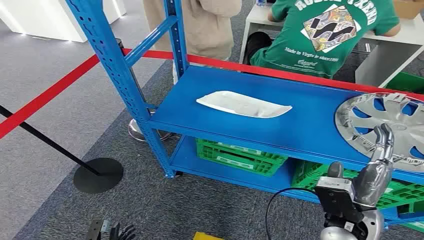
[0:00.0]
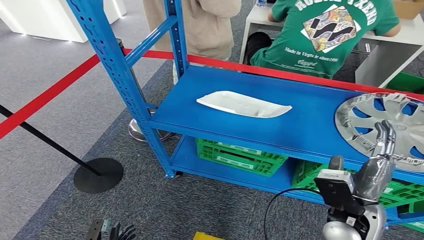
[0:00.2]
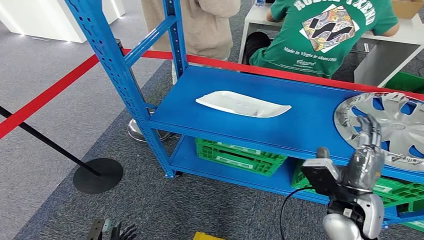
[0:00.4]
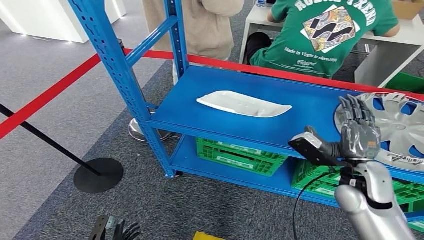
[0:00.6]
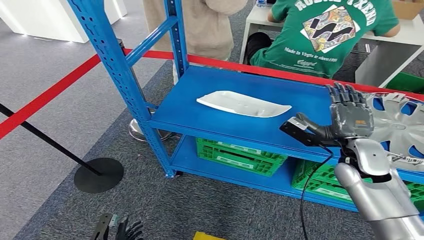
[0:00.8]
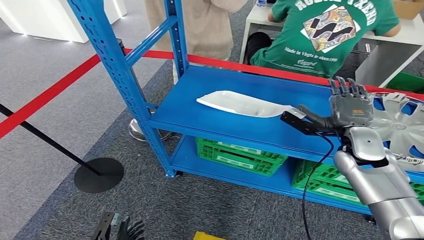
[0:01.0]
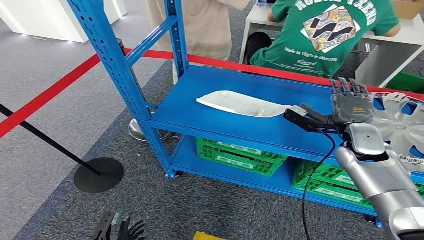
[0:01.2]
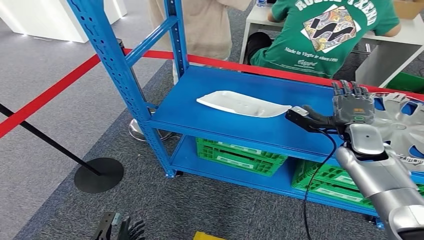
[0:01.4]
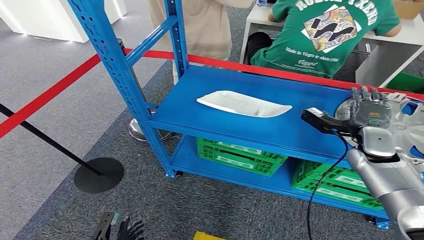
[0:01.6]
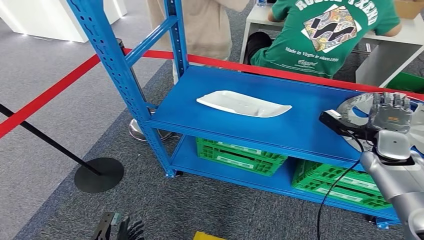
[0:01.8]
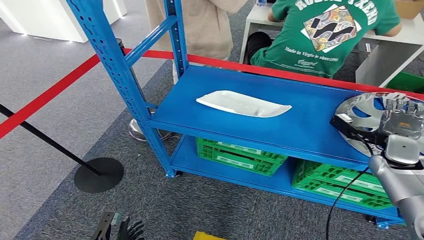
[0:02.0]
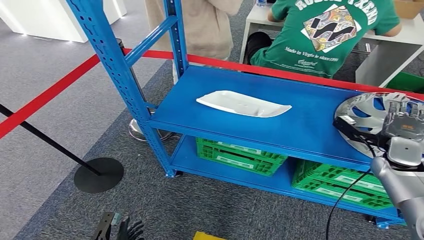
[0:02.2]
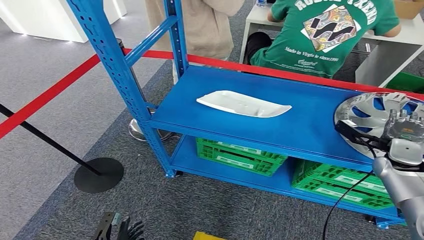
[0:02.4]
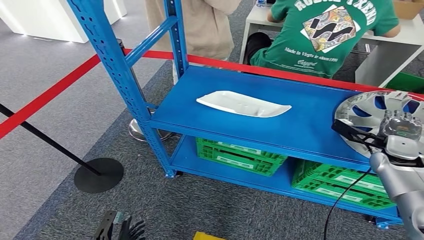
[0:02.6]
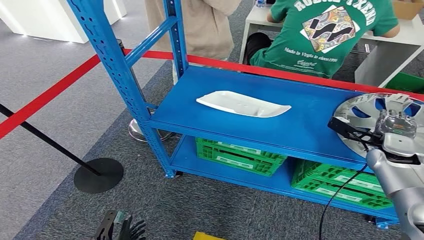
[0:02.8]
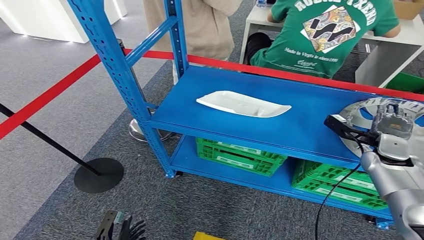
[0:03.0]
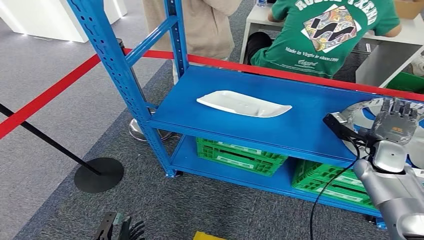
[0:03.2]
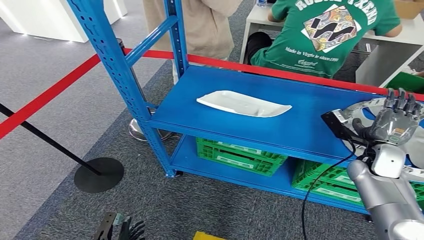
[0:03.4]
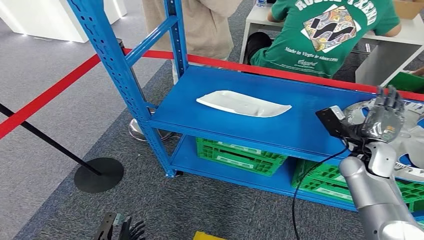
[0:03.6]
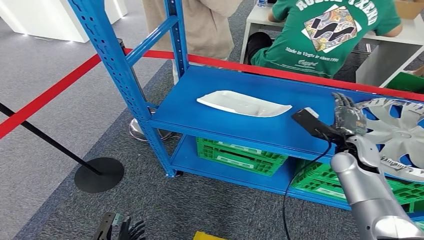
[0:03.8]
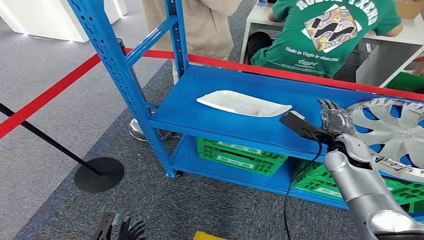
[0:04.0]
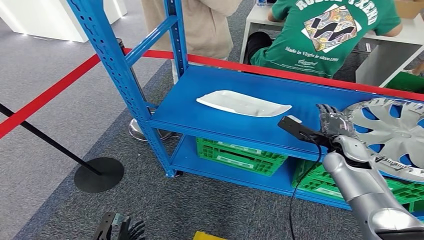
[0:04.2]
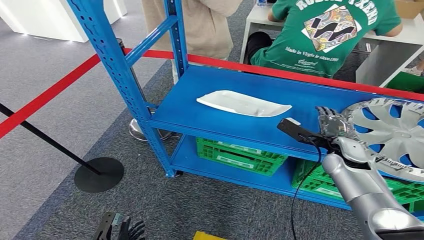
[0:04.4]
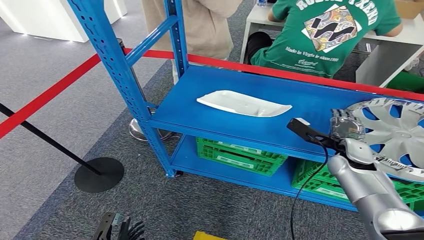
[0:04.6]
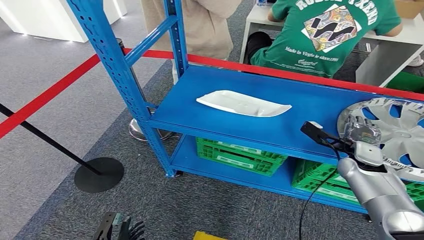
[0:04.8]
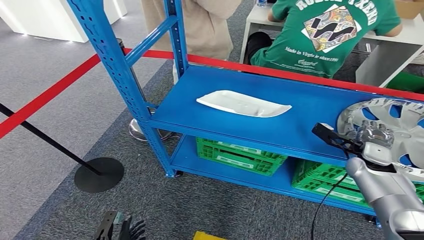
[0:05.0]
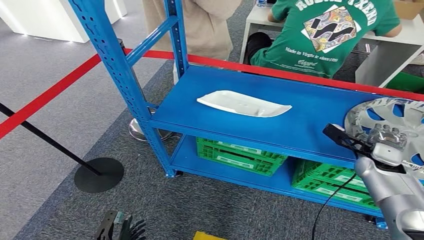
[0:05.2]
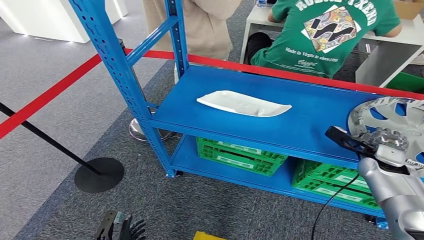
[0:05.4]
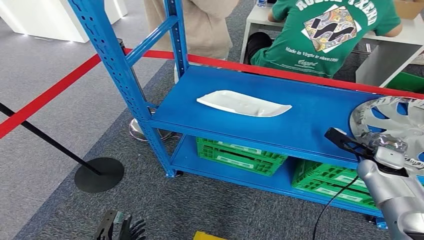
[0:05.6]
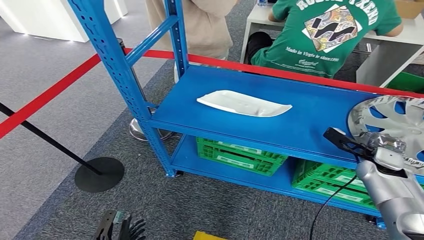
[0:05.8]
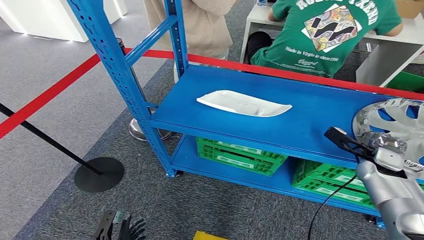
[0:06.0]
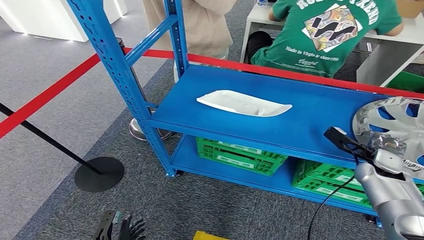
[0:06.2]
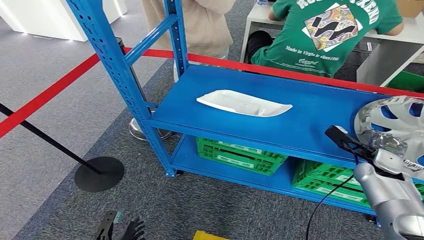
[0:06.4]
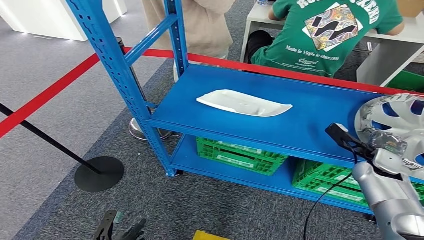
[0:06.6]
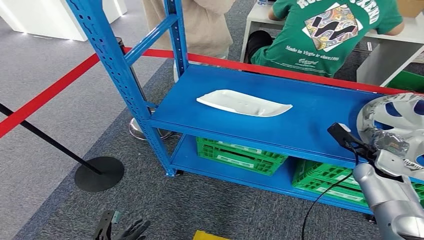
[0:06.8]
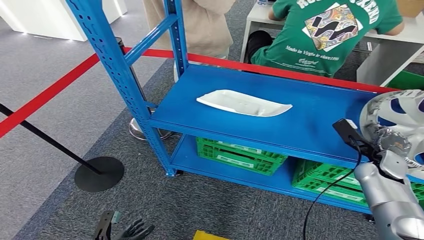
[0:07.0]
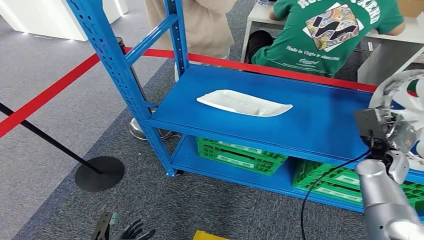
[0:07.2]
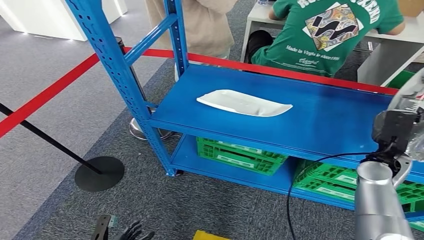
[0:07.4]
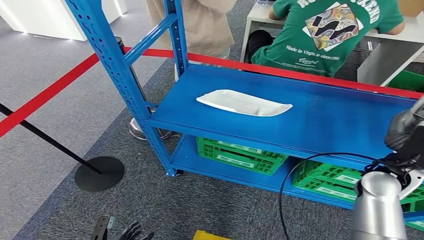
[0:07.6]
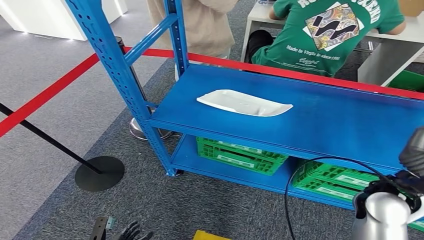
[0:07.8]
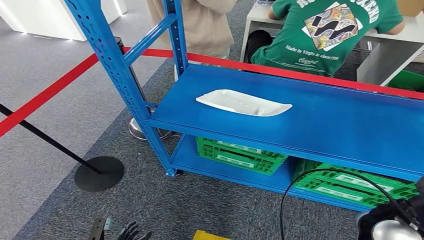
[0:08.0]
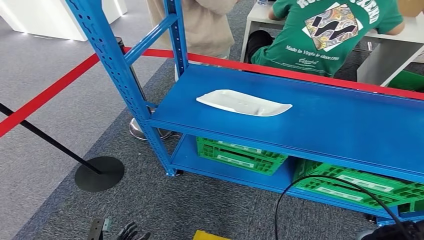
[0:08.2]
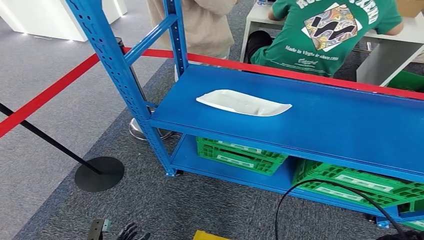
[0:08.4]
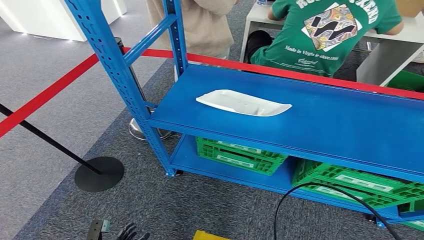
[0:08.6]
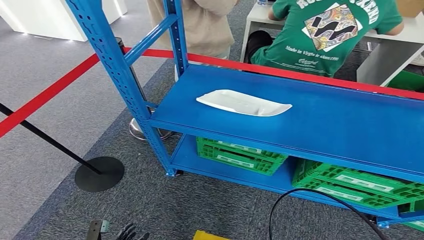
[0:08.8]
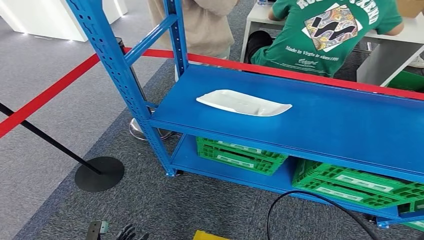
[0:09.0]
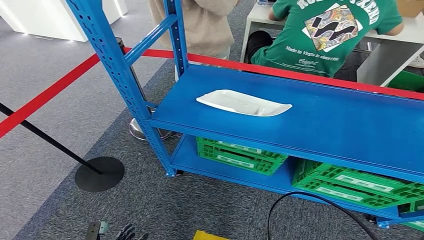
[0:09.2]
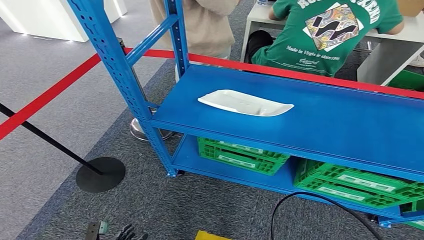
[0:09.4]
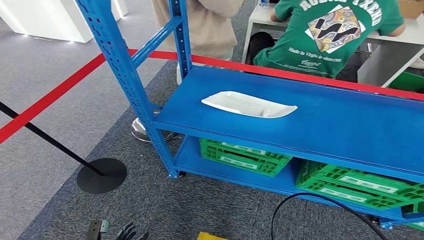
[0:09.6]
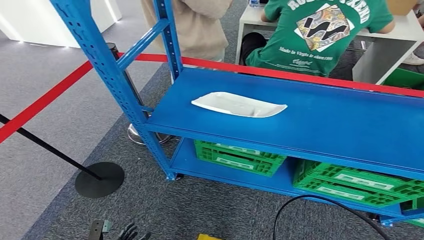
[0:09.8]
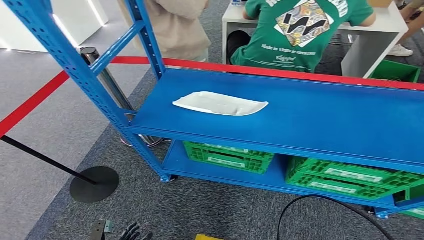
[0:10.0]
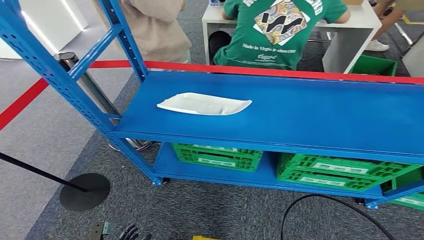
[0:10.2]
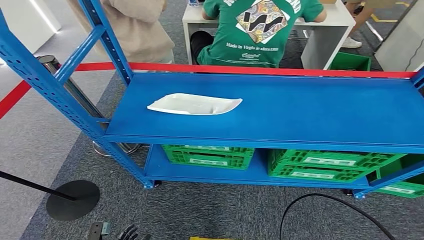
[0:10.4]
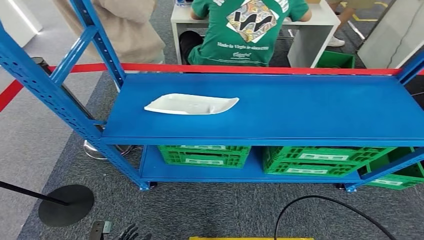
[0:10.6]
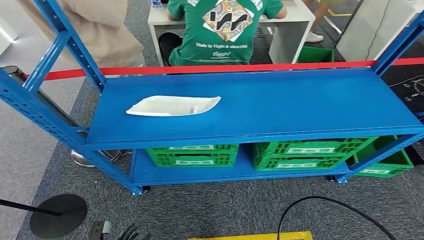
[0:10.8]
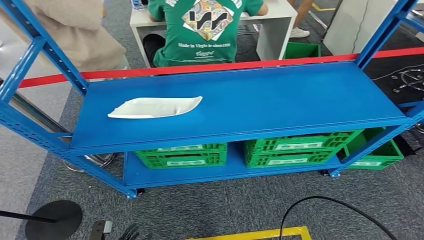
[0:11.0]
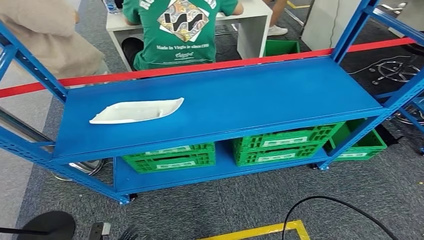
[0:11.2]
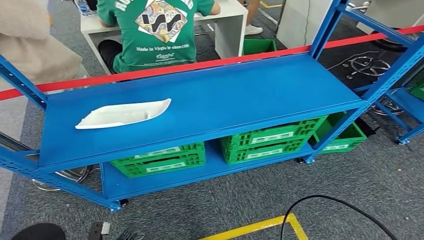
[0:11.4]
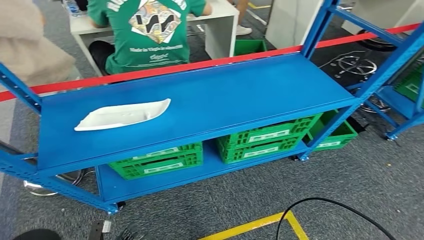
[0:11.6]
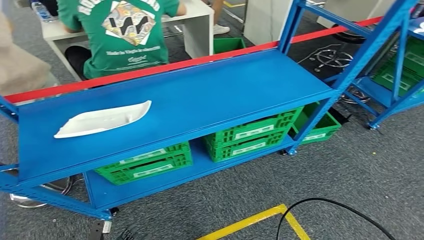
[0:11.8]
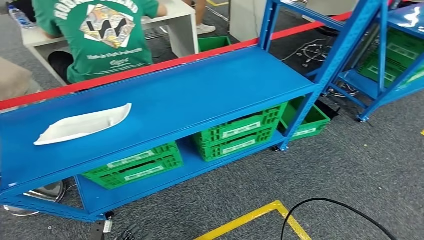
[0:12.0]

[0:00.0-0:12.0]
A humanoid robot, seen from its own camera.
Step, 0:00.0 to 0:09.2: Pick up the small component from the shelf.
0:03.0 to 0:04.4: The right hand shifts some 10 cm to the left.
0:04.4 to 0:06.0: The right hand shifts about 10 cm to the right.
0:06.0 to 0:07.6: The right hand shifts approximately 10 cm to the left and upward.
0:07.6 to 0:09.0: The right hand moves backward and to the left, roughly 20 cm.

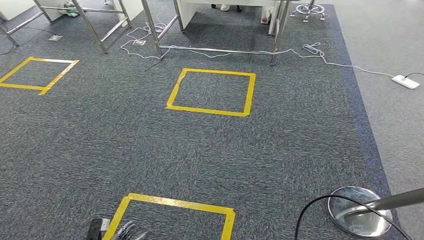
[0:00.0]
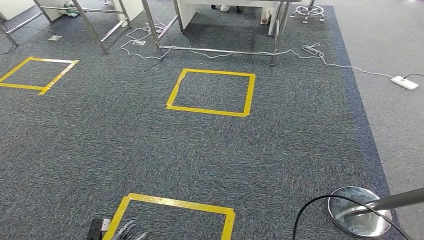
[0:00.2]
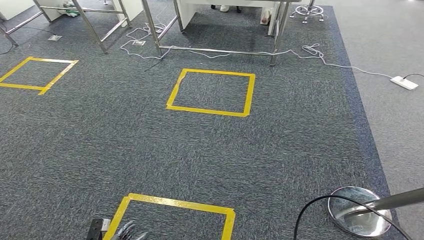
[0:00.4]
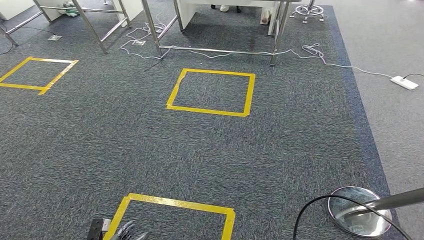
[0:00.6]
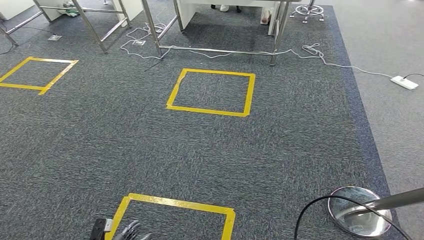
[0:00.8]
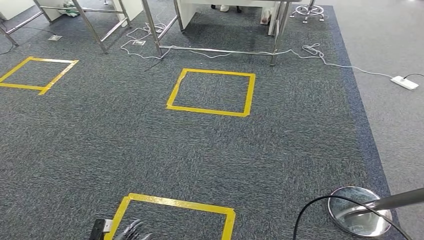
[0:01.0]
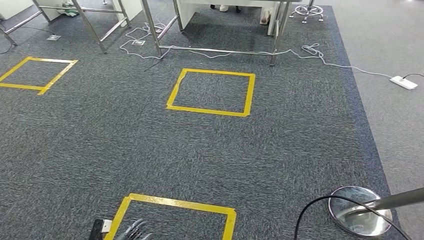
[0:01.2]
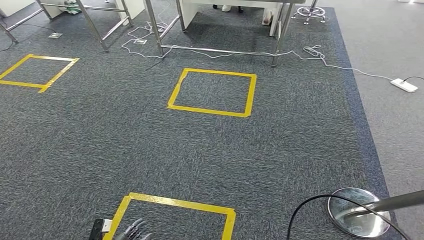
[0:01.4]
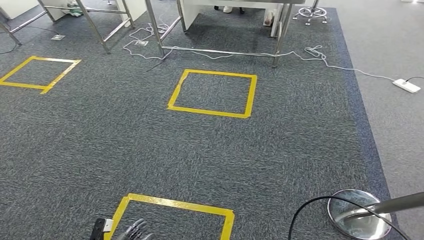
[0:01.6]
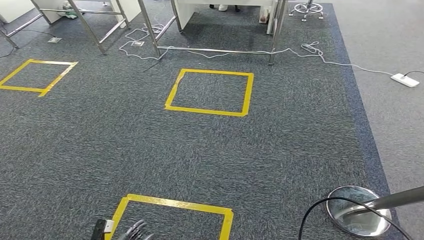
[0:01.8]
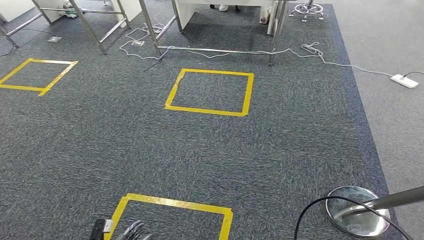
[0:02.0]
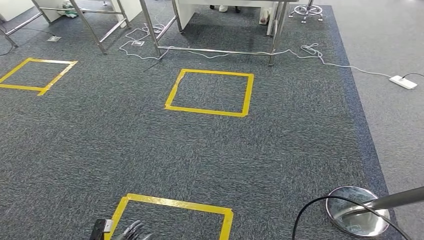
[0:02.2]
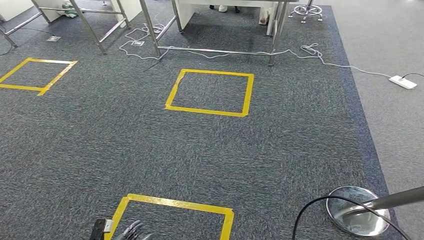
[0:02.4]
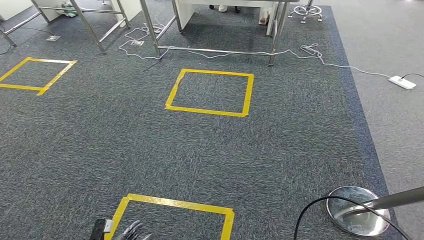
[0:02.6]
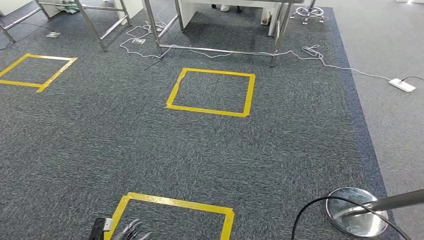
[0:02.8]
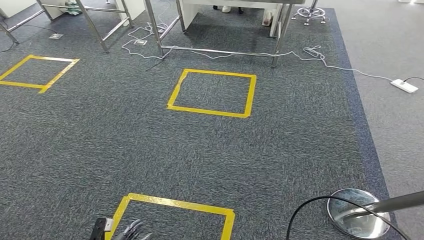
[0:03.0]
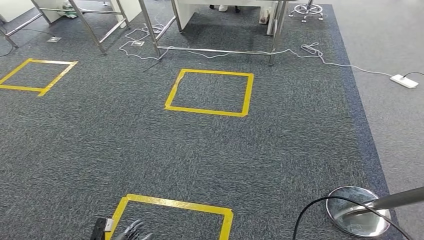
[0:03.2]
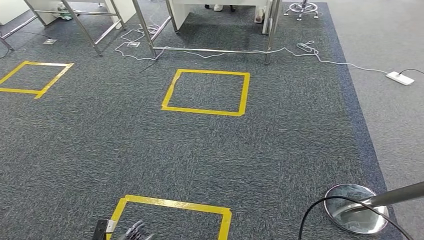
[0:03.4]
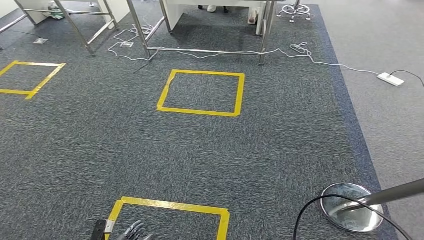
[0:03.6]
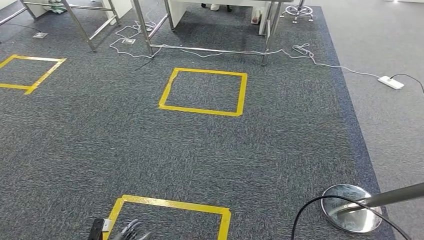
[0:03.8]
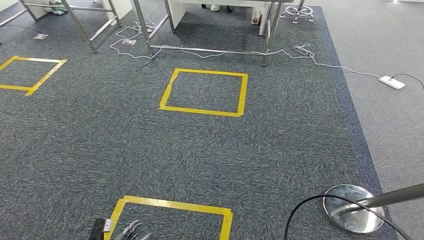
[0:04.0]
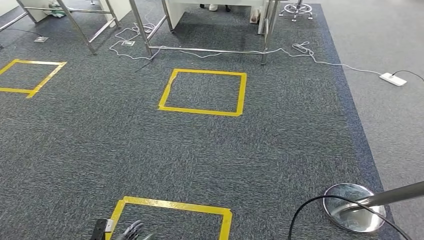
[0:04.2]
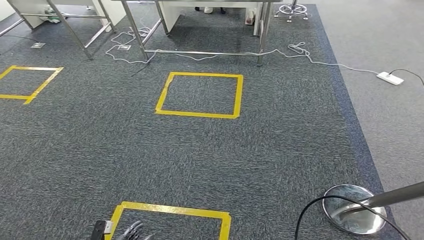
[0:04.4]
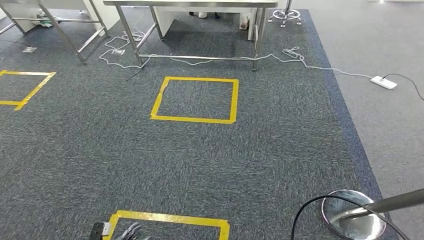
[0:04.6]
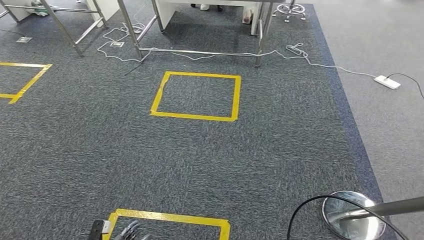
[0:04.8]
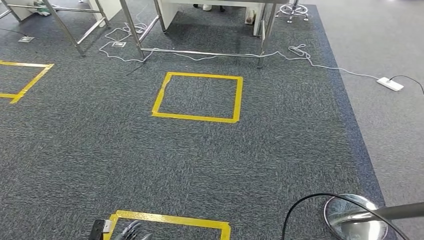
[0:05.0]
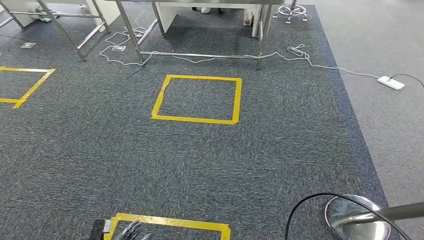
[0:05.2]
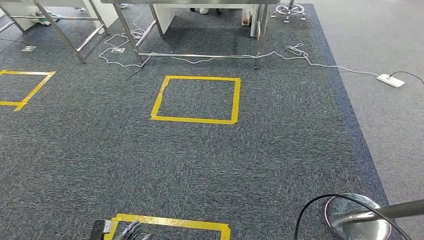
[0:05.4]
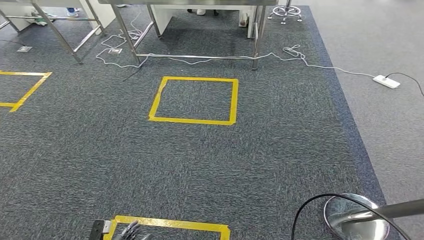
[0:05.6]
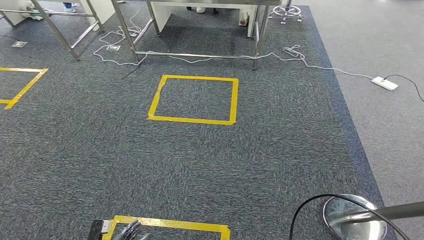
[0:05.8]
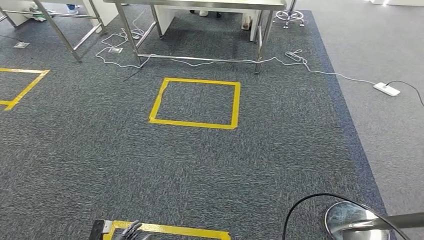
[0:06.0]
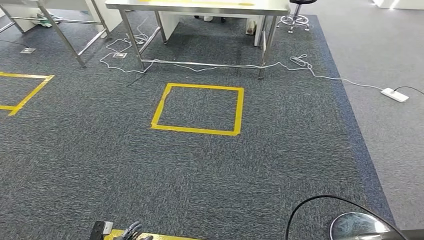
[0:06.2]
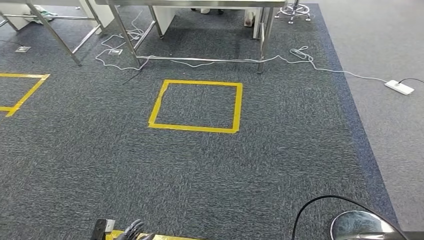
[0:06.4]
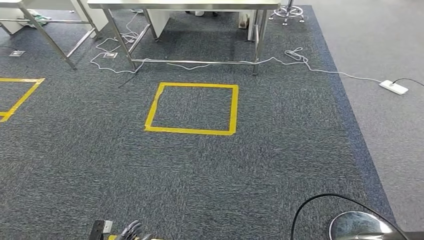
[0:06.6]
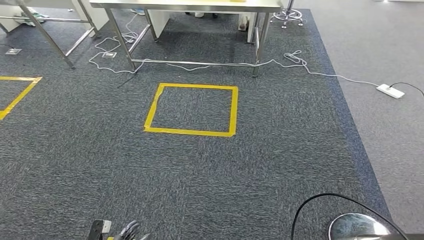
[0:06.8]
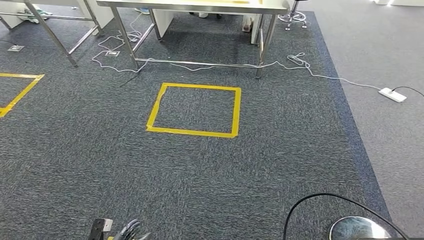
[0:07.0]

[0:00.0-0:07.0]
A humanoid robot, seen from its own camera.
0:00.0 to 0:02.8: The hands make only small movements.
0:02.8 to 0:04.2: The two hands keep their place.
0:05.6 to 0:07.0: The two hands keep their place.
